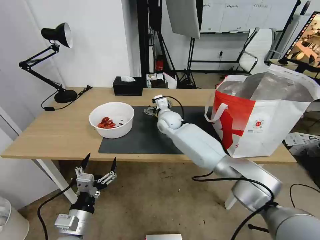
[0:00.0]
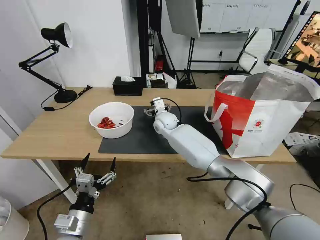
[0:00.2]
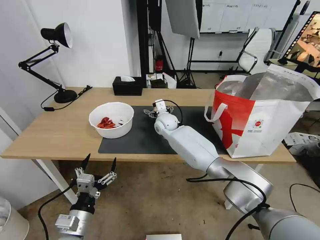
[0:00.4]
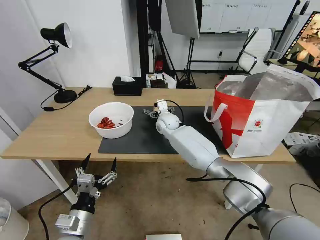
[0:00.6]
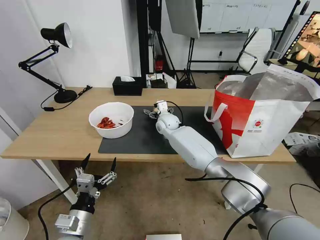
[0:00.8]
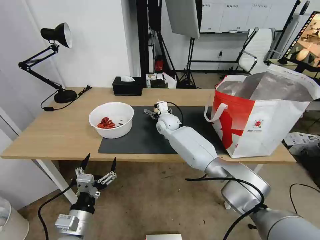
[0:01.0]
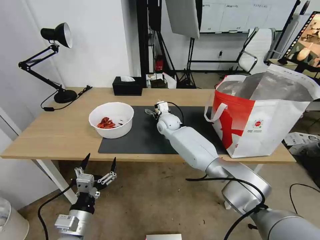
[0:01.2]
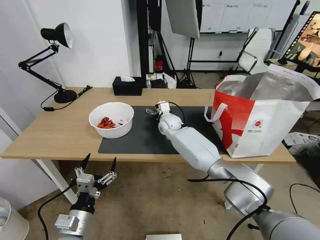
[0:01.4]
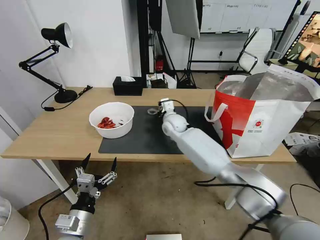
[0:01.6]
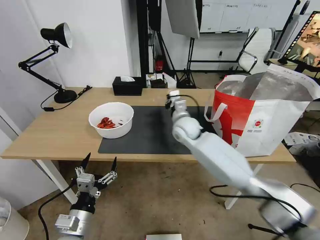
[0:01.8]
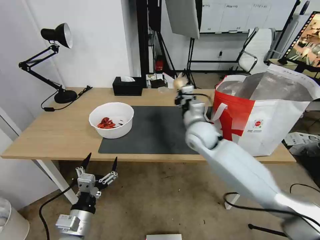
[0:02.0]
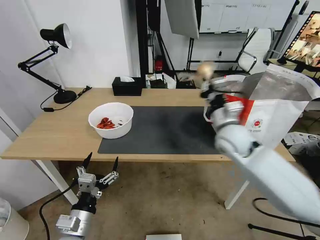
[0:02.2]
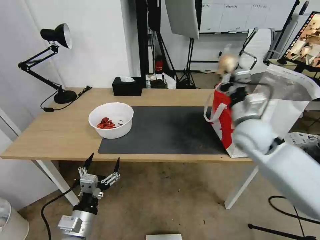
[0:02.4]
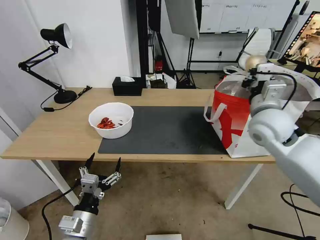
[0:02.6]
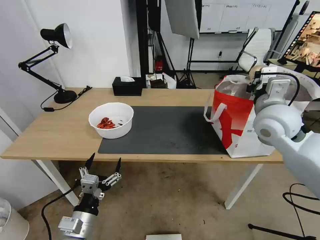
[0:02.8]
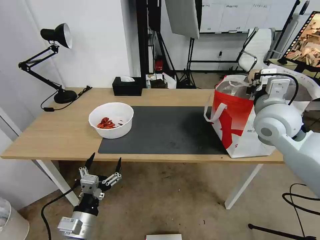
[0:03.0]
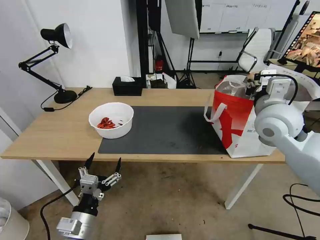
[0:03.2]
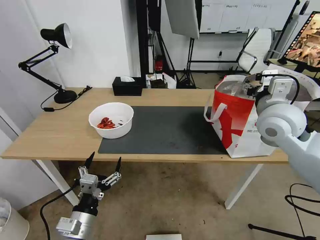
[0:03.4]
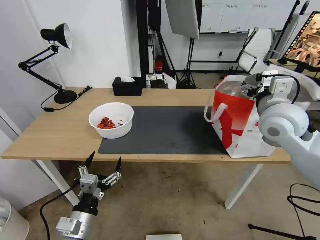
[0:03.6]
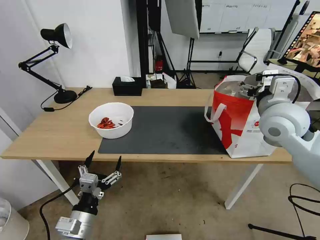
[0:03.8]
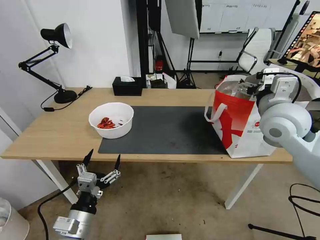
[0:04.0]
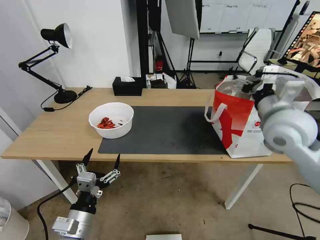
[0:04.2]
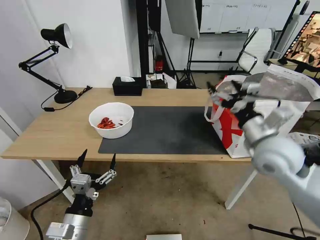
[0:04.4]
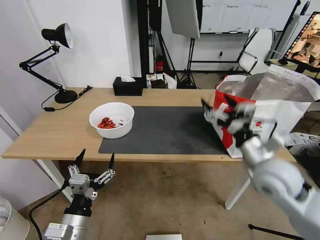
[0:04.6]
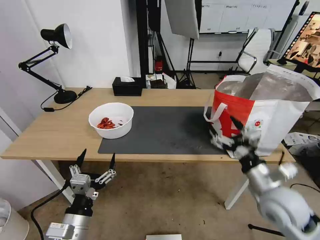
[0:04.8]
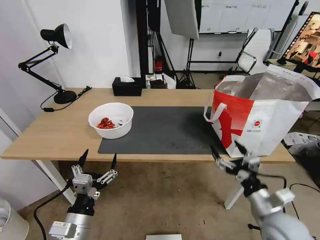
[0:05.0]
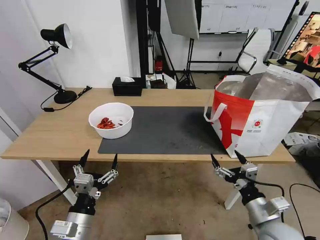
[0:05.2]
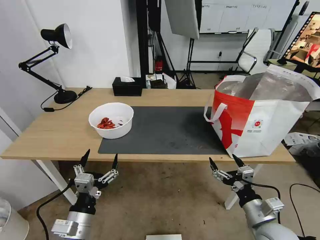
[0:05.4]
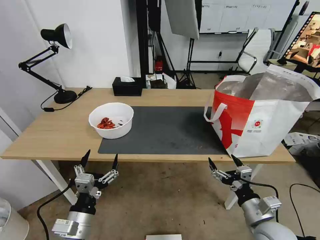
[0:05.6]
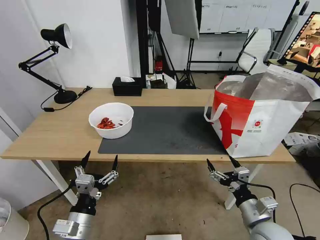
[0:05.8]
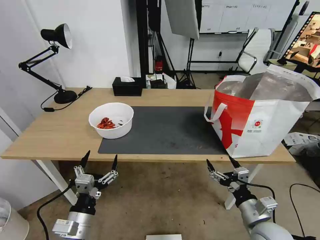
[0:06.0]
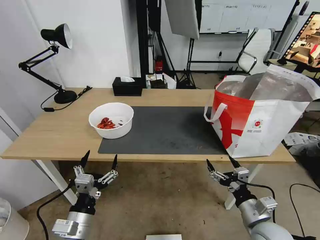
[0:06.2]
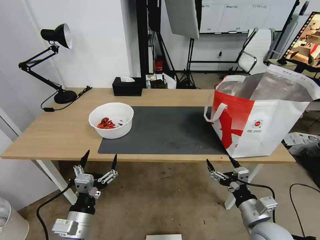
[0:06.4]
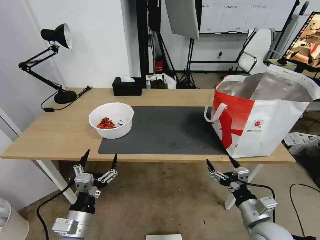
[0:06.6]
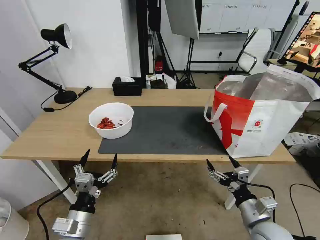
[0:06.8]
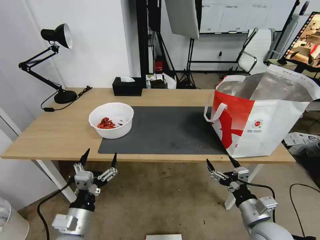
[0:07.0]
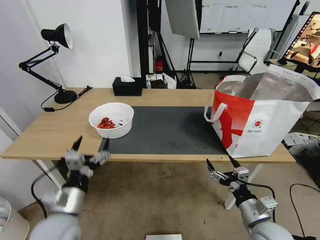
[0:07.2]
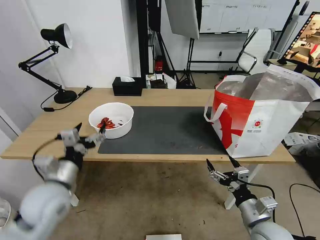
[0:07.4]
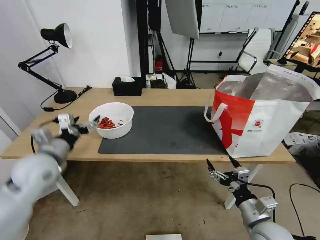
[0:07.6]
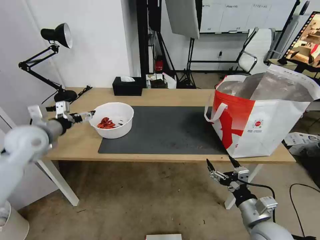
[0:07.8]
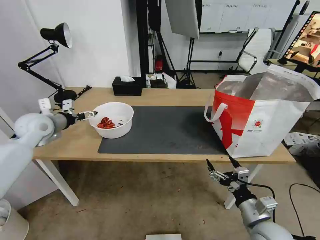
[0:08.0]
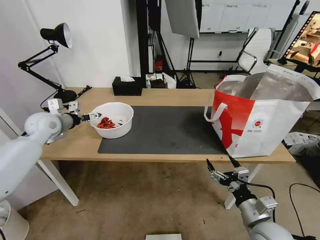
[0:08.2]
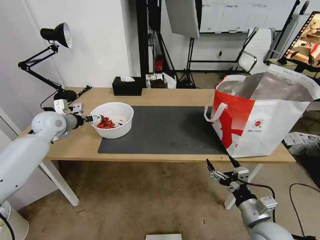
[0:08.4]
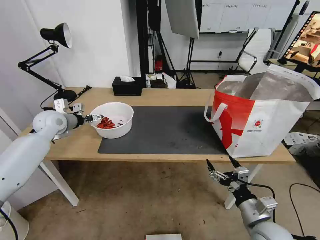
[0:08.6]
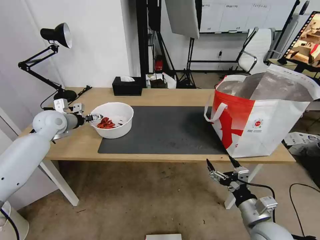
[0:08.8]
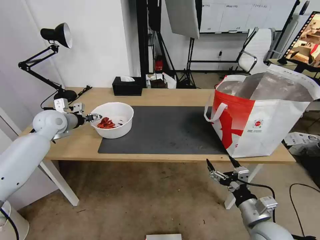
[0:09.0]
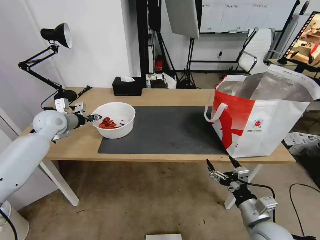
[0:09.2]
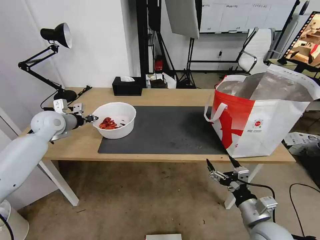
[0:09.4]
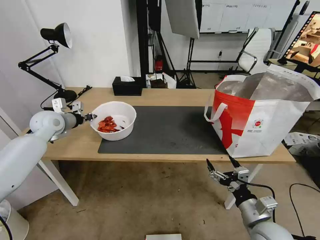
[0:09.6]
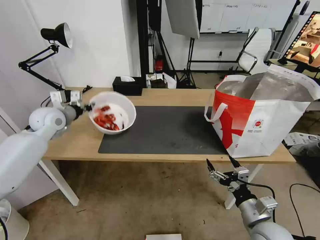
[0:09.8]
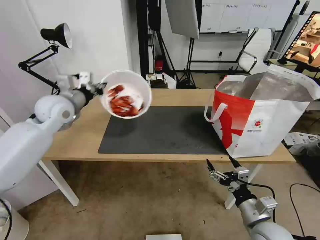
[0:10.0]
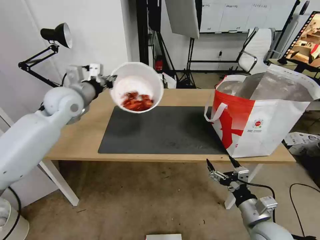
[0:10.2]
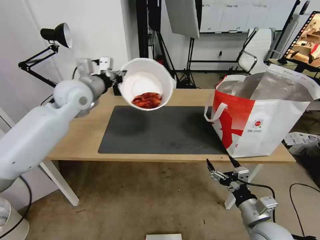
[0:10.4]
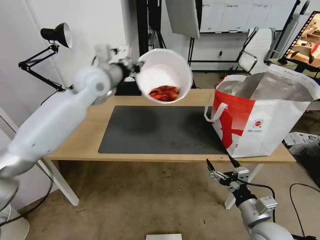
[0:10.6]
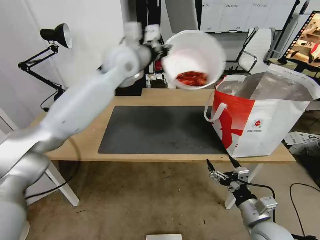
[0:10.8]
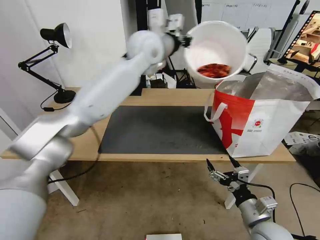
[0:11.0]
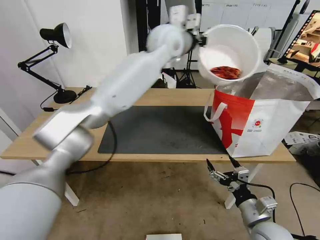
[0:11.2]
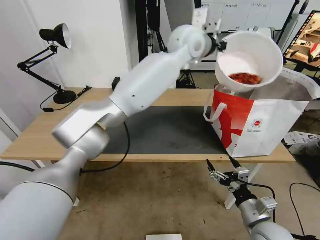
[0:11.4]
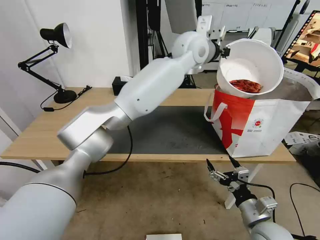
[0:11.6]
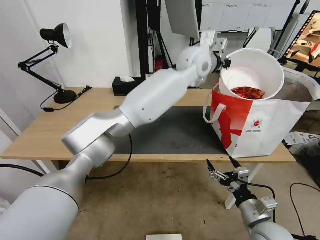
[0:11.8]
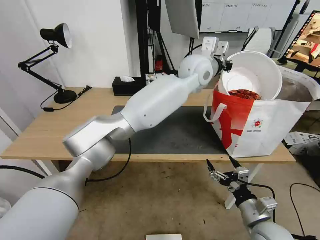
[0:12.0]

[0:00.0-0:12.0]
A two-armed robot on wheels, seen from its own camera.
Task of the whole recording: Pick up the trash from the table and place it into the takeout bag.
0:00.0 to 0:01.6: The right gripper closes.
0:01.6 to 0:03.0: The right gripper shifts some 35 cm to the right, upward and backward.
0:03.0 to 0:04.4: The right gripper is displaced backward by approximately 5 cm, and opens.
0:04.4 to 0:06.0: The right gripper is displaced downward and backward by roughly 25 cm.
0:06.0 to 0:07.6: The left gripper heads forward, upward and to the left, covering approximately 25 cm.
0:07.6 to 0:09.0: The left gripper moves forward, approximately 15 cm, and closes its fingers.
0:09.0 to 0:10.4: The left gripper shifts some 20 cm to the right and upward, and closes up.
0:10.4 to 0:12.0: The left gripper shifts roughly 35 cm to the right.

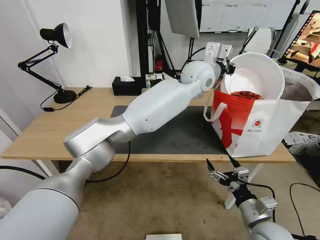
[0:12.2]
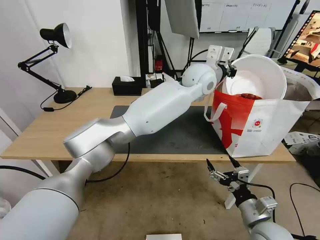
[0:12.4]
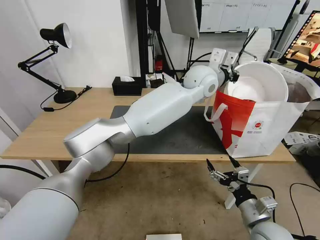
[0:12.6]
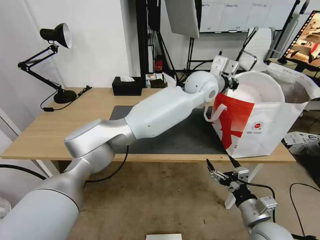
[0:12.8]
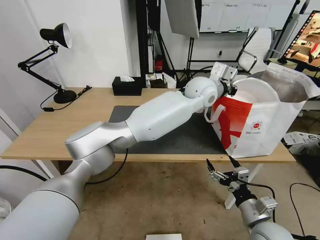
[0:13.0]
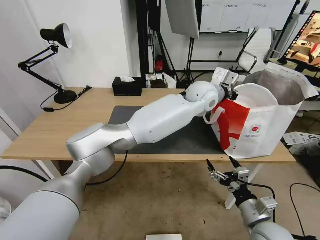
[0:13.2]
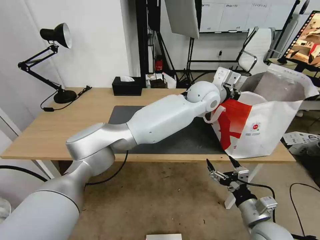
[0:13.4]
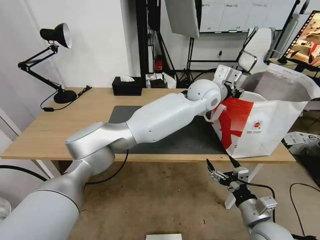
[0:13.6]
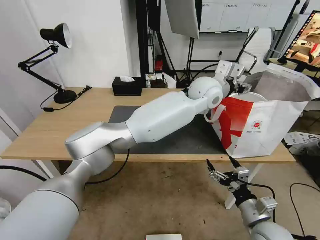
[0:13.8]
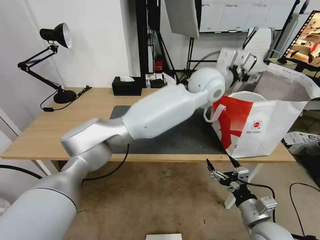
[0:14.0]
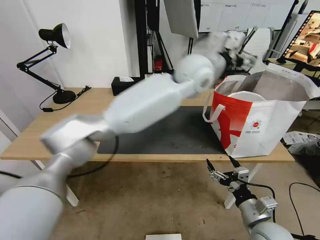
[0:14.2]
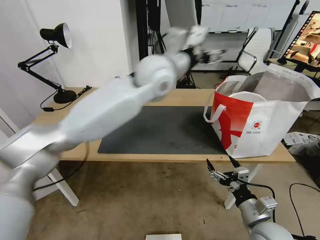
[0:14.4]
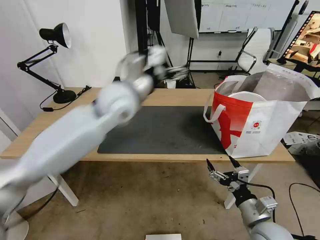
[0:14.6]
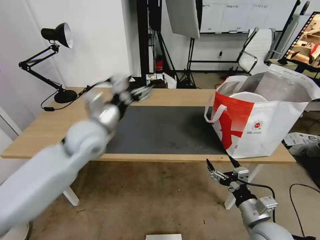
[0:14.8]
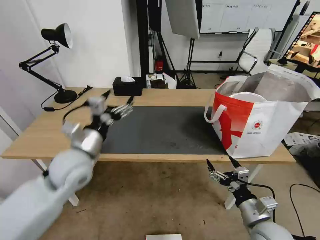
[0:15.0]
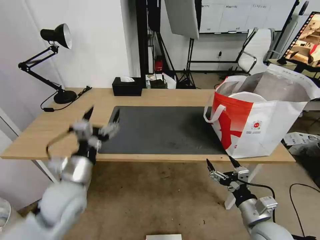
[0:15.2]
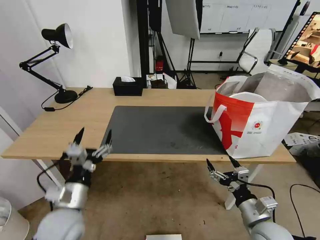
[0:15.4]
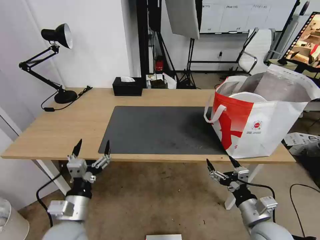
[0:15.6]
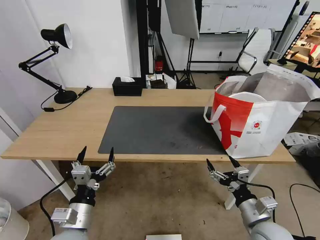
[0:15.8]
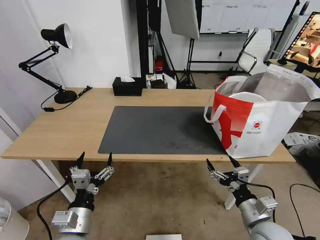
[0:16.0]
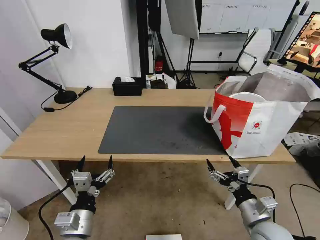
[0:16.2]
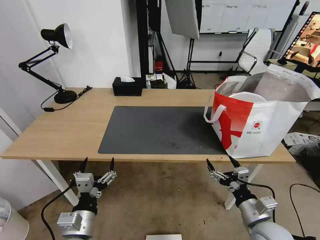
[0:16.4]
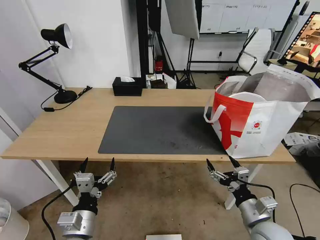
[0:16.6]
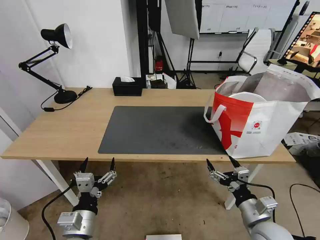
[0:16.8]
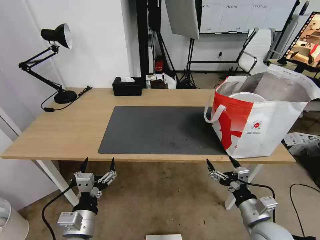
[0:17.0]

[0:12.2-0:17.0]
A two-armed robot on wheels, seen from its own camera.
Task of the whole recording: Pick up the trash from the table and place it into the takeout bag.
0:12.2 to 0:13.8: The left gripper changes place by approximately 5 cm, and opens.
0:13.8 to 0:15.4: The left gripper moves to the left, backward and downward, some 50 cm.
0:15.4 to 0:17.0: The left gripper heads backward, covering approximately 5 cm.
